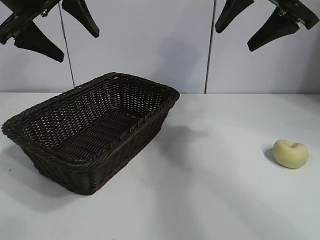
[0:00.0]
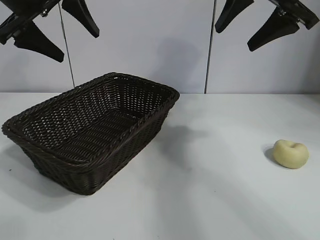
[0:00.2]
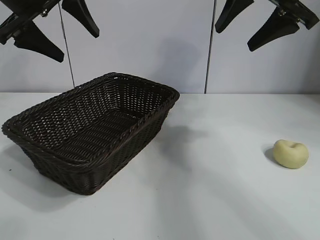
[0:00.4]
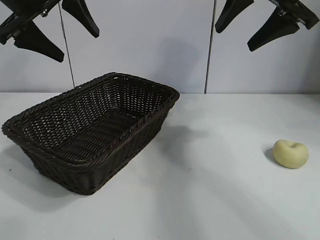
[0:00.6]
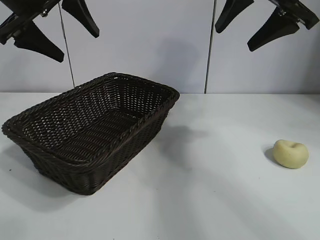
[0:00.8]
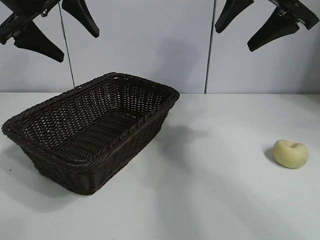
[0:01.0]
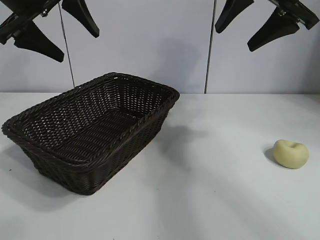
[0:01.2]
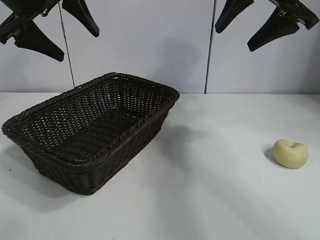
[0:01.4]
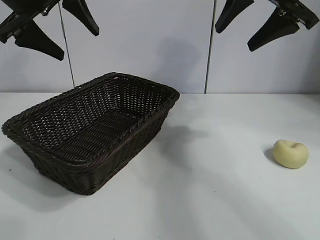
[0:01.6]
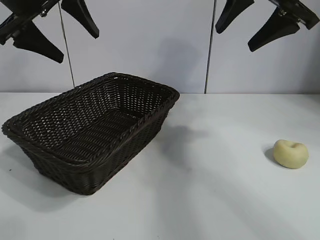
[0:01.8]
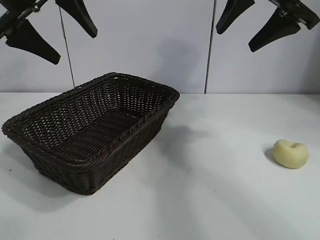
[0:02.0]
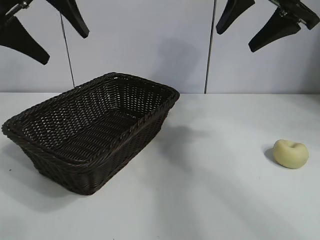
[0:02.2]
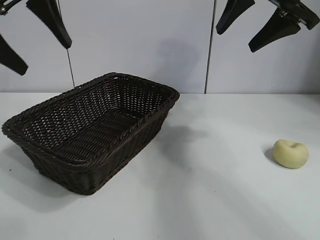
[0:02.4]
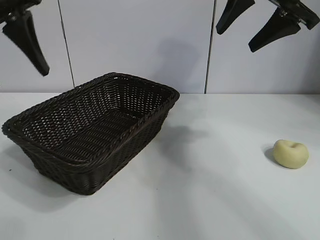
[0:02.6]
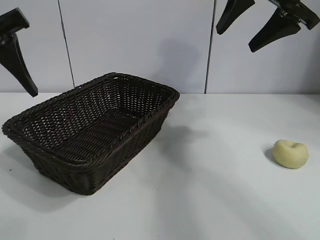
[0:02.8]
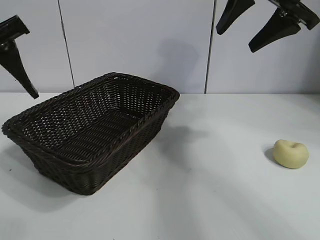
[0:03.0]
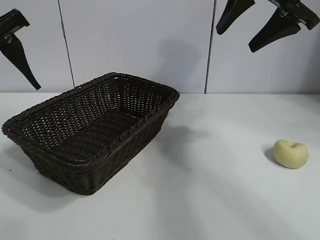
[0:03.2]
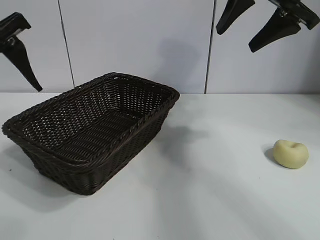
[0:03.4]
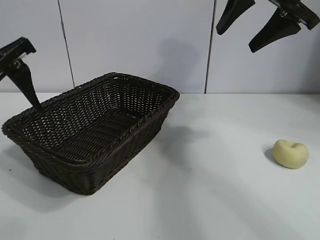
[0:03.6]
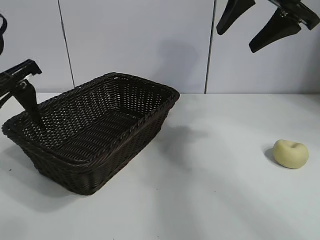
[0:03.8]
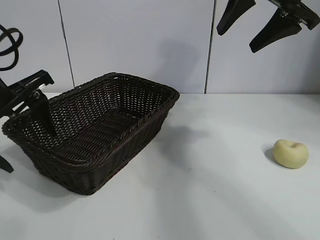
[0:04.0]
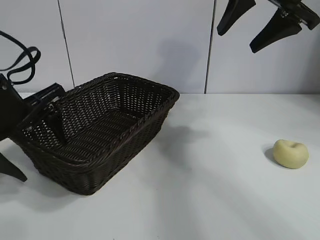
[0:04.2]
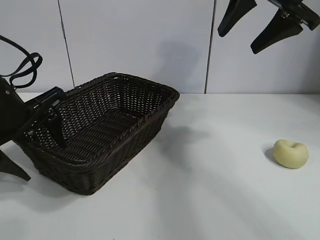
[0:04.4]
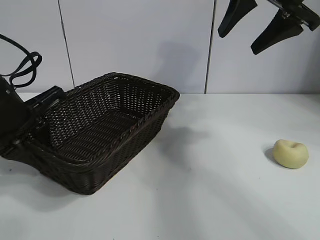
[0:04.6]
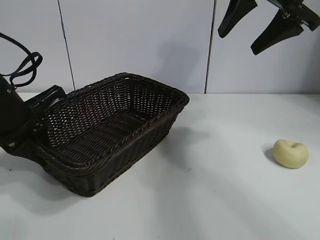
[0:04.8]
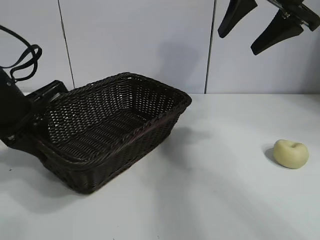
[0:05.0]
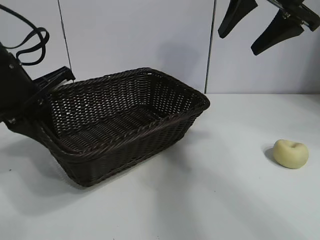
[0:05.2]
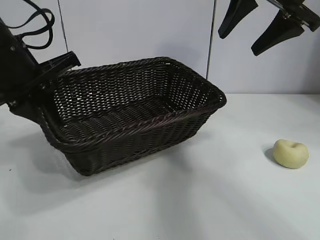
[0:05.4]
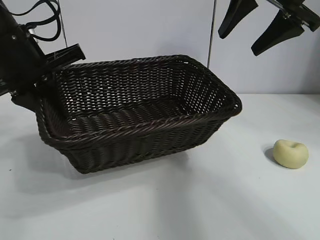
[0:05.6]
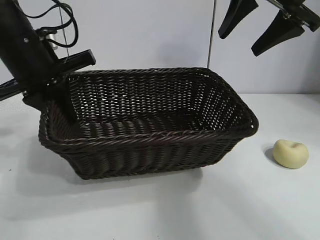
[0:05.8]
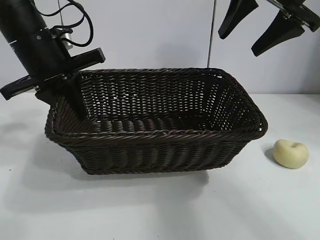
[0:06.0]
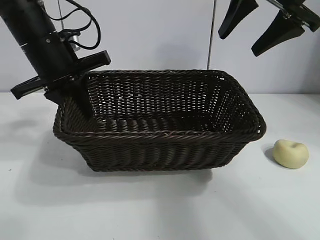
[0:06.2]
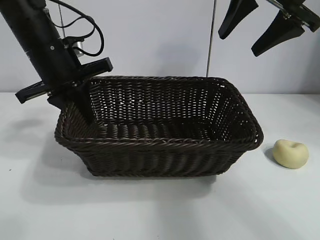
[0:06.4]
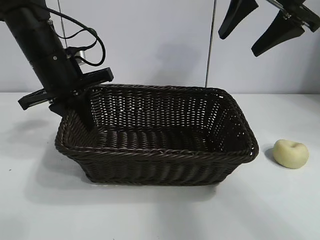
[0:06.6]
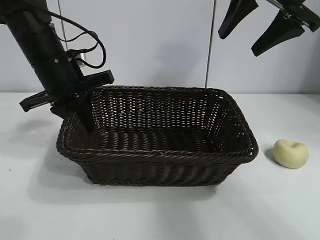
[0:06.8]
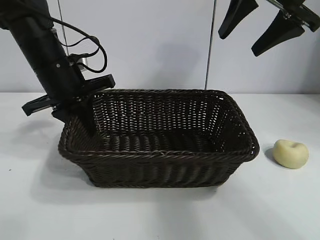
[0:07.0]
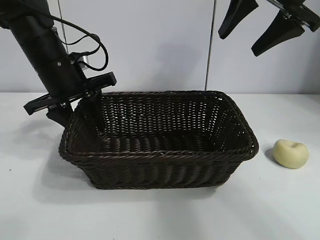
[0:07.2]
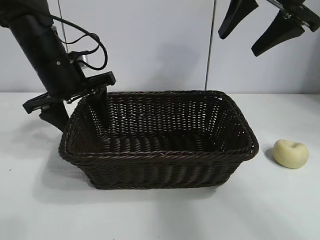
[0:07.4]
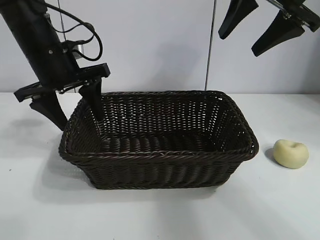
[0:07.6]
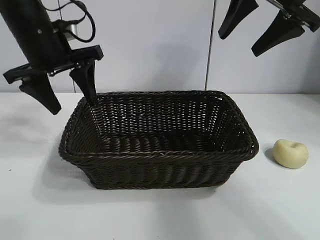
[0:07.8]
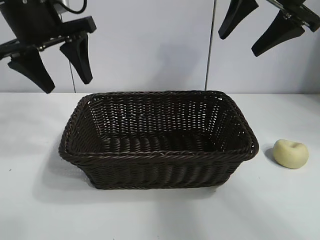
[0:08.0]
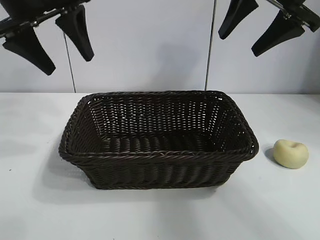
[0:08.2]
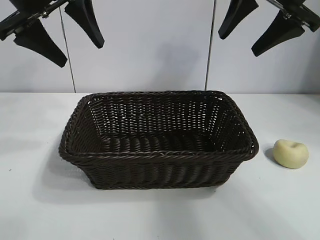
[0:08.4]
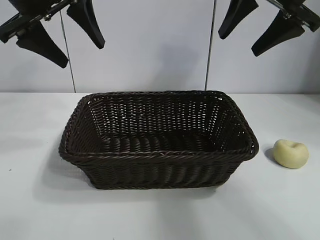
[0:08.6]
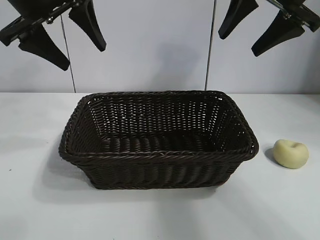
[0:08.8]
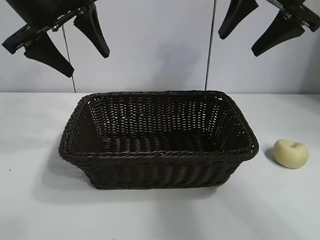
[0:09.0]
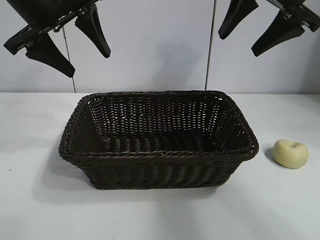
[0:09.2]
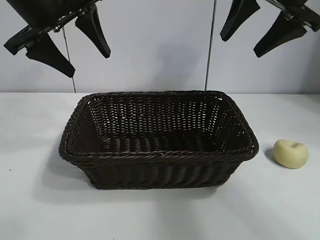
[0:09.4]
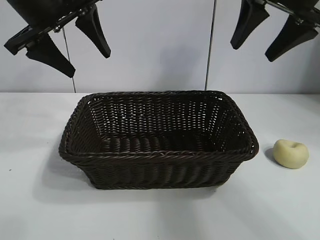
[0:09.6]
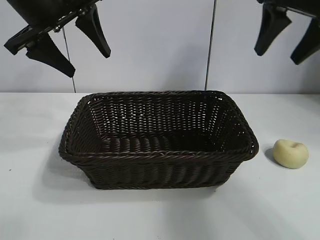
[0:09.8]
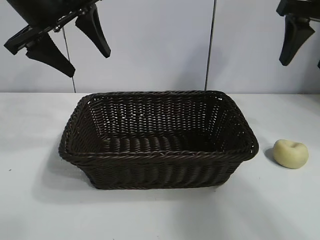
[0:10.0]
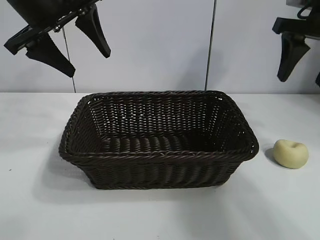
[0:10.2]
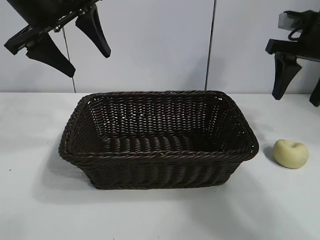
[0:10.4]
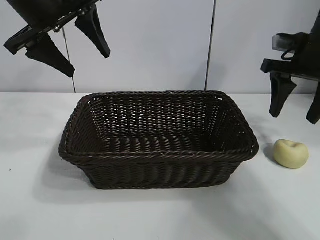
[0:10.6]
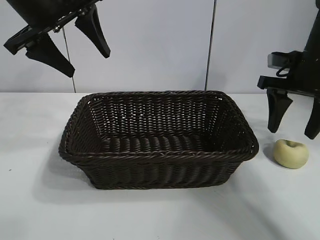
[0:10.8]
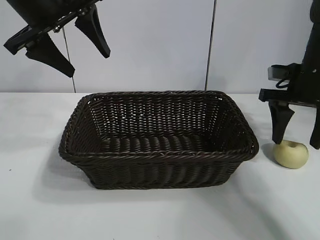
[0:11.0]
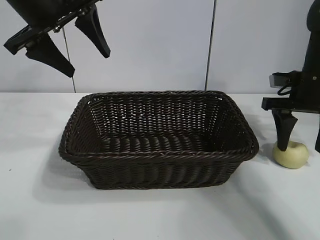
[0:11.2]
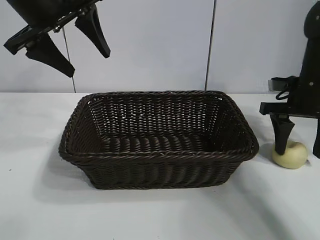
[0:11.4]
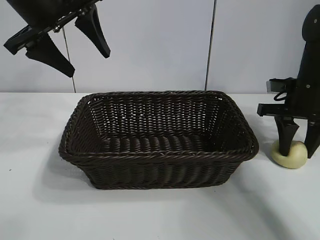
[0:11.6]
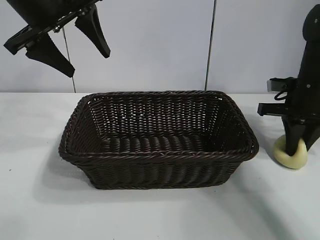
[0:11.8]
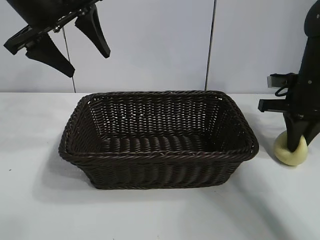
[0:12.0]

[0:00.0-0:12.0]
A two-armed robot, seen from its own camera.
Task of the whole recording: pick up the egg yolk pastry and put it into the basket.
Step, 0:01.2 to 0:04.6: Grasp the basket with left gripper.
Step, 0:04.8 to 0:07.4: Place the basket in the center of view with left gripper.
Step, 0:07.6 to 0:11.8: Grasp egg yolk pastry with right gripper.

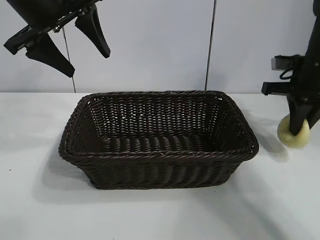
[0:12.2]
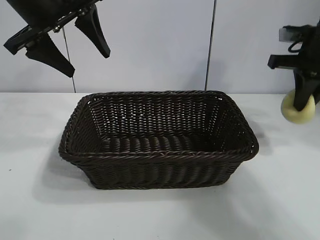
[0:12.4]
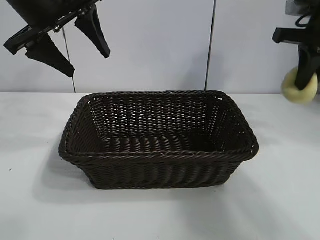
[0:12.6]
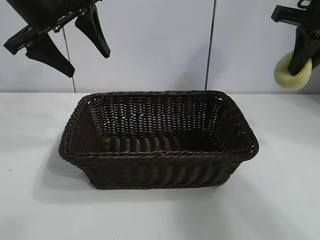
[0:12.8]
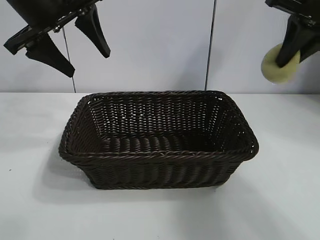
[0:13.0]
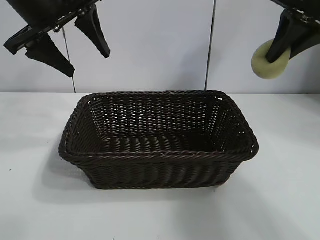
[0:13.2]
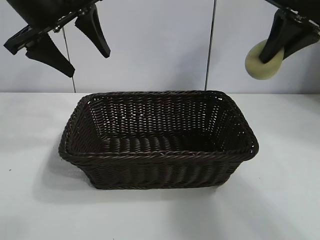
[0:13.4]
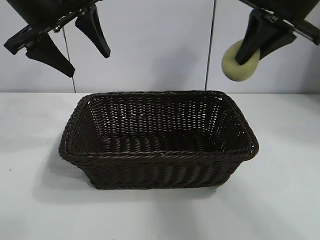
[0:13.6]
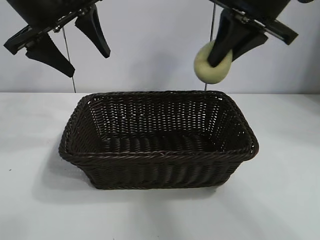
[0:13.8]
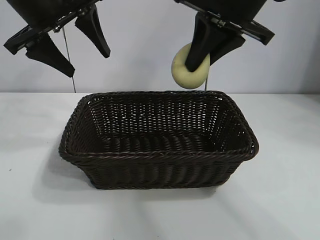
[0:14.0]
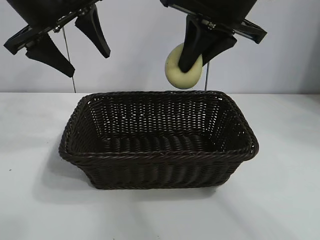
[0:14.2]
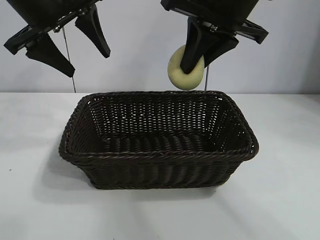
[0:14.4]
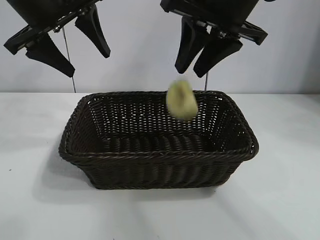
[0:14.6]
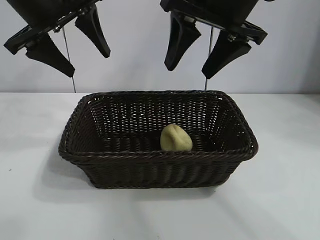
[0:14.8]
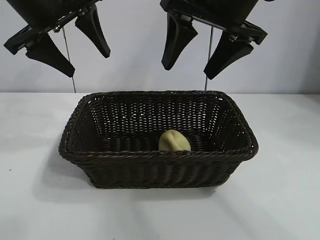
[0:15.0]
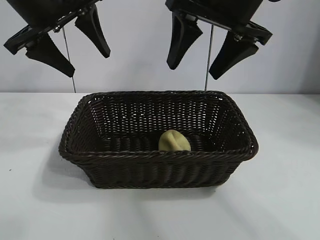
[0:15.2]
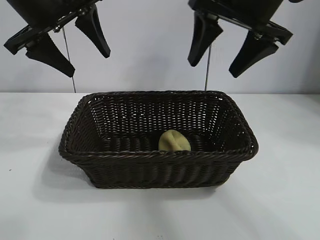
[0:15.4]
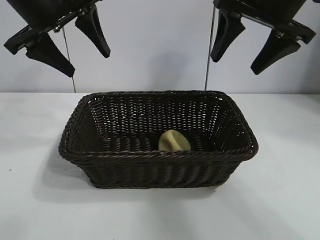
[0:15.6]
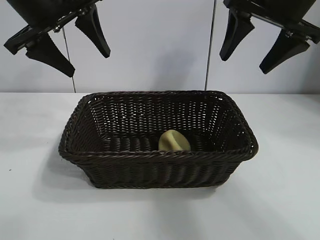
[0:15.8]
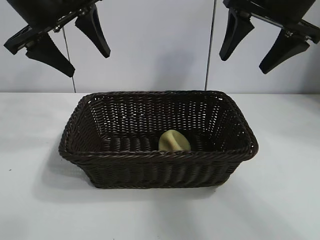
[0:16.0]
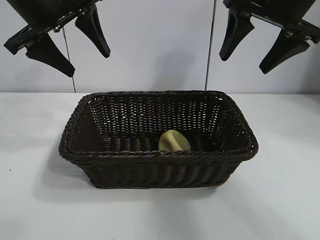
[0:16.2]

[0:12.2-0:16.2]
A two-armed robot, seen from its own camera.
Task of the whole recording: pick up the egg yolk pastry and put it into the basket.
Step, 0:12.2 to 0:14.8: Place the egg yolk pastry in the basket with right gripper.

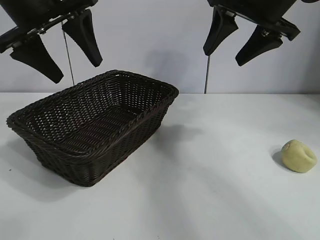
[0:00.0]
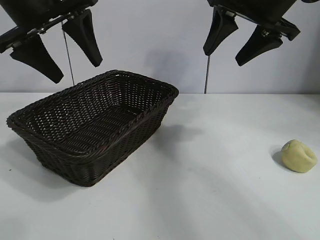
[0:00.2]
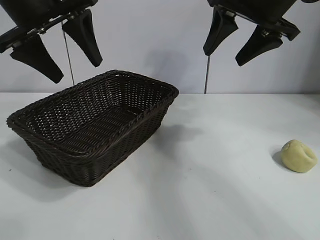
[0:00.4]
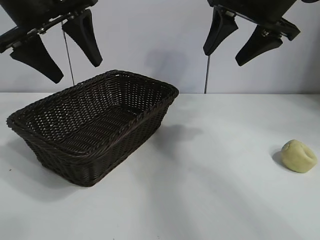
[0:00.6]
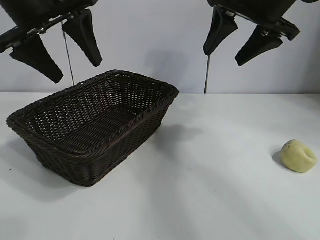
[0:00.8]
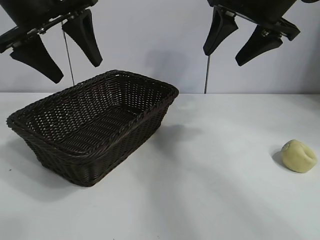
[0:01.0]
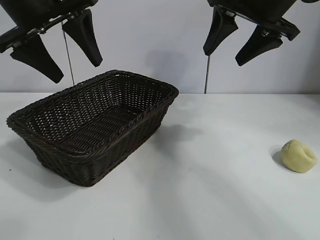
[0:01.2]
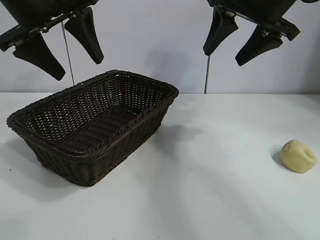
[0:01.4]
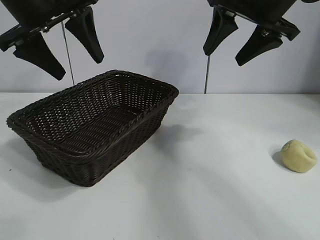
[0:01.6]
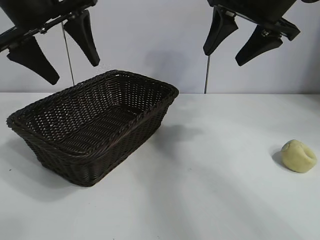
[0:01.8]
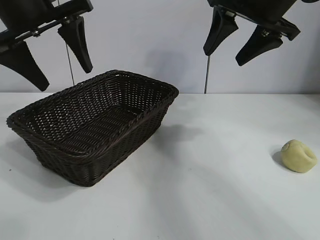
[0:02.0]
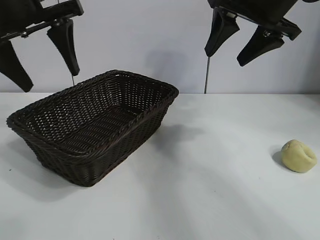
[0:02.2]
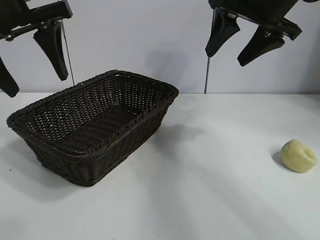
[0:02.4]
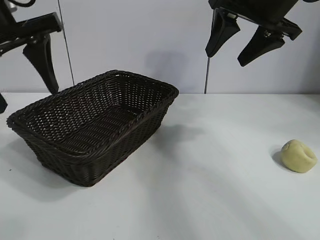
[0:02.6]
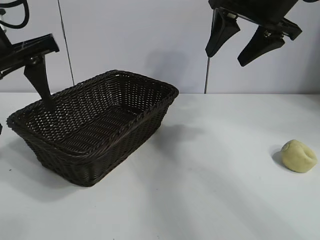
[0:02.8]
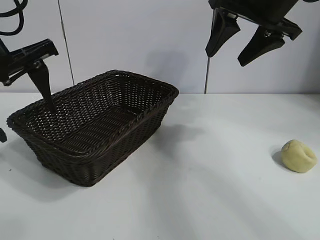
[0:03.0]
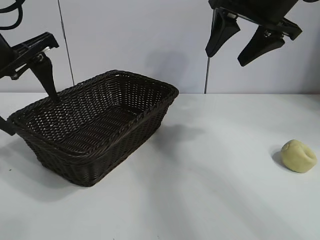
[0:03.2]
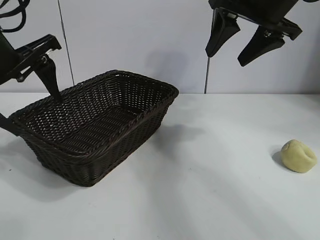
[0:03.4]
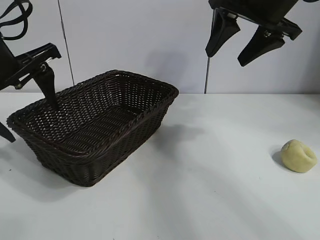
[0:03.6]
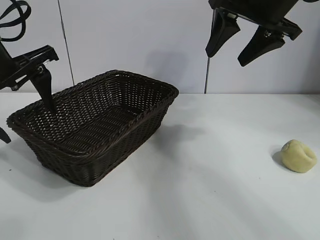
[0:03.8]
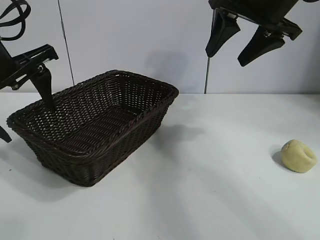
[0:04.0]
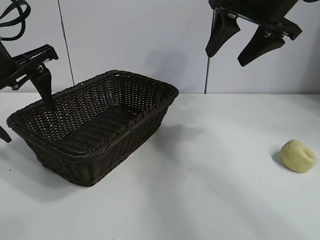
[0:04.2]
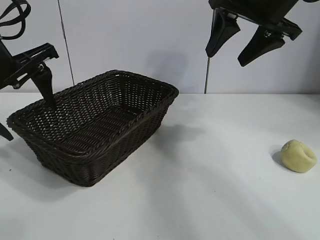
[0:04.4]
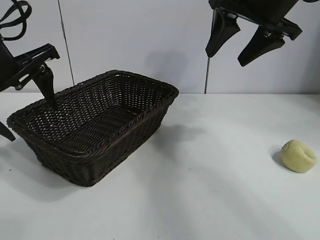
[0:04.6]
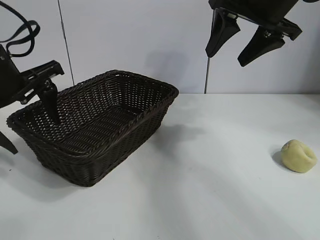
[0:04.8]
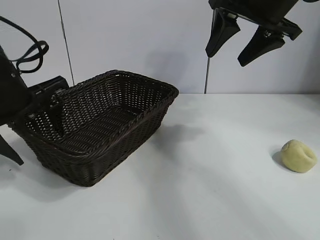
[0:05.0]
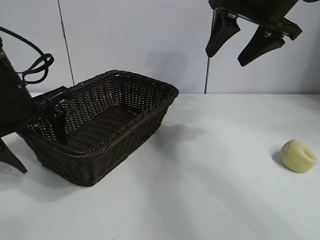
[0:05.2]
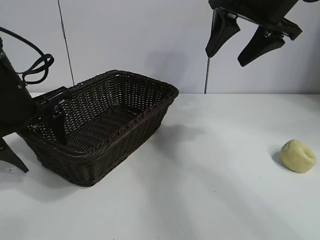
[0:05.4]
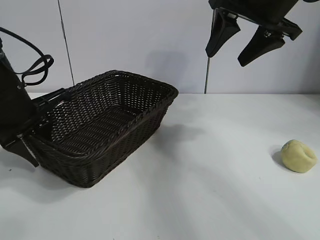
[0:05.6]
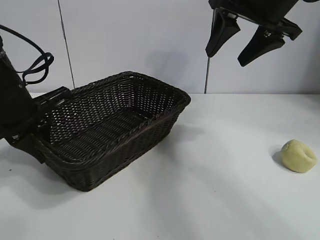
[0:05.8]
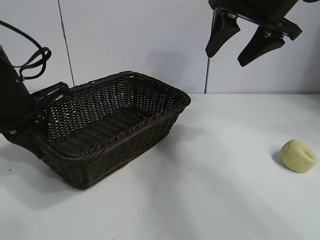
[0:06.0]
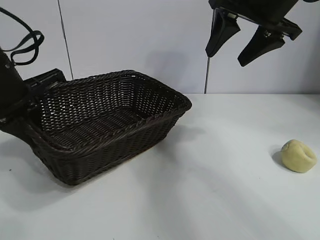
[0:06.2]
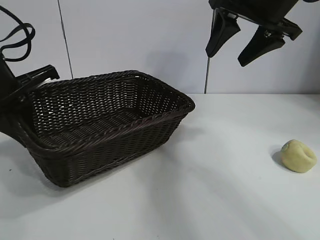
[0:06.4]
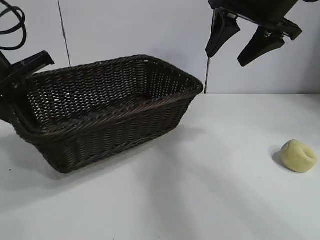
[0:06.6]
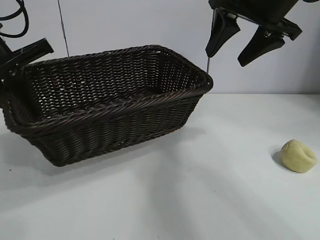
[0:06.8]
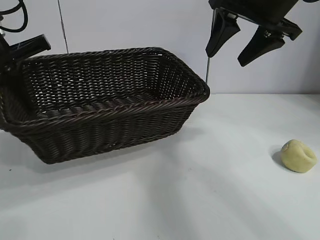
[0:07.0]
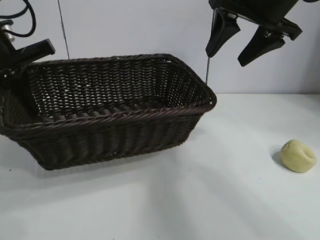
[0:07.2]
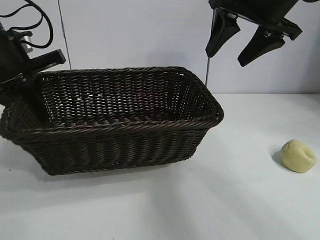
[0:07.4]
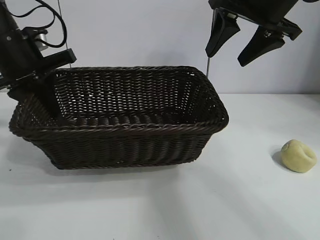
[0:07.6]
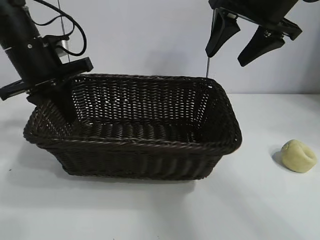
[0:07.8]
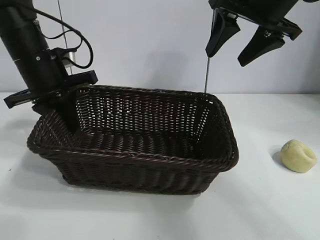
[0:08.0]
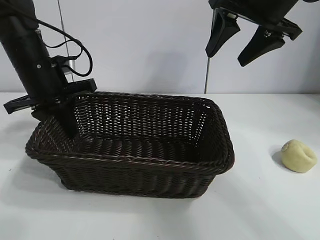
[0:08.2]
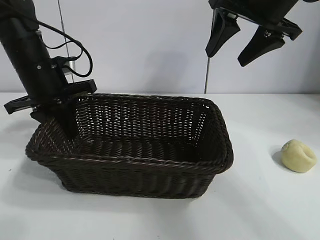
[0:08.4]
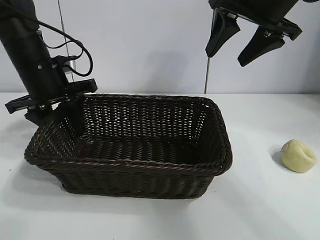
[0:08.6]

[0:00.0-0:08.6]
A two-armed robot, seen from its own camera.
Task of the whole recording: pick up the egg yolk pastry and put it into the basket.
Step, 0:01.2 to 0:05.6: Grasp the basket with left gripper.
